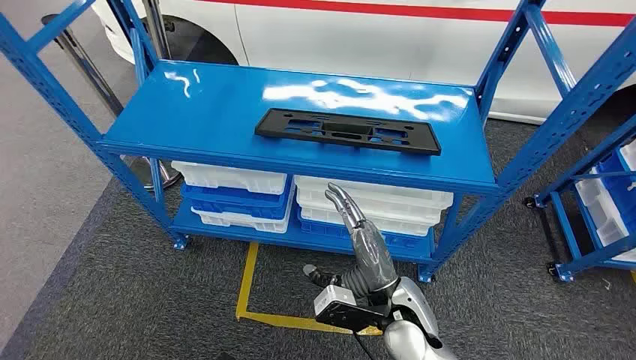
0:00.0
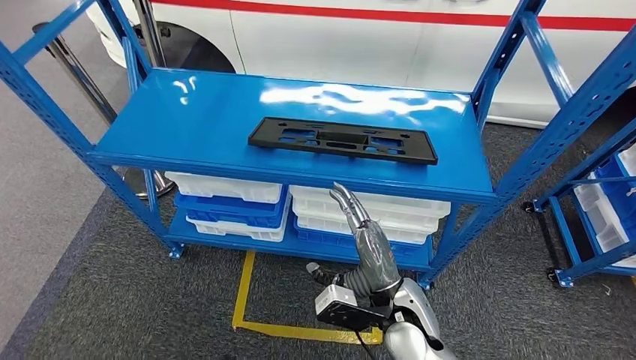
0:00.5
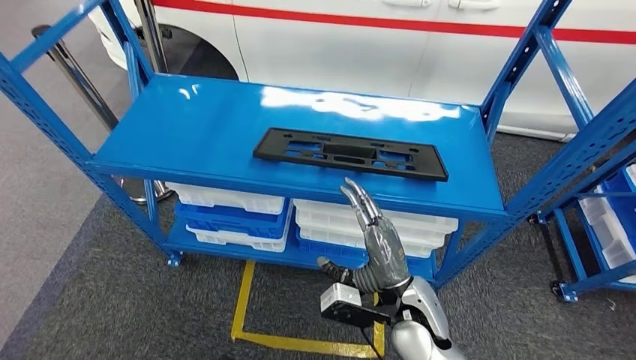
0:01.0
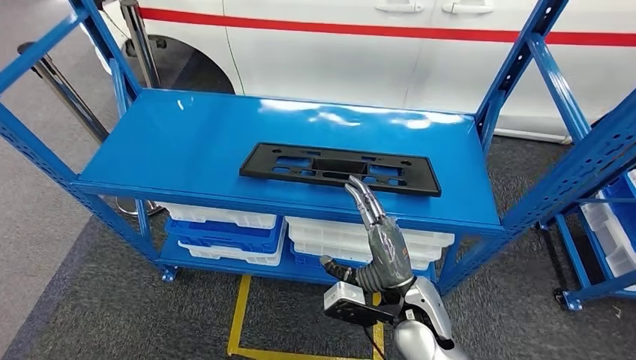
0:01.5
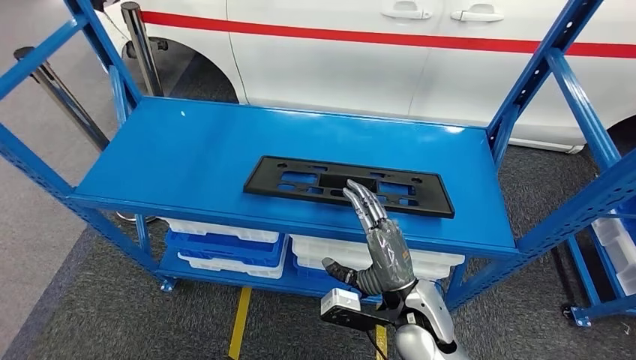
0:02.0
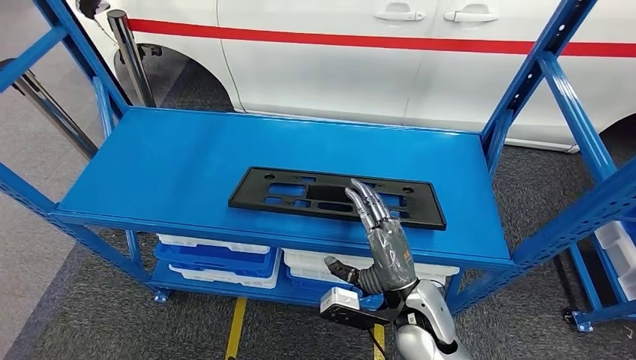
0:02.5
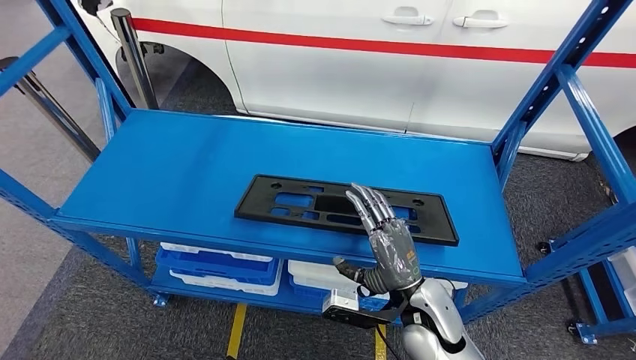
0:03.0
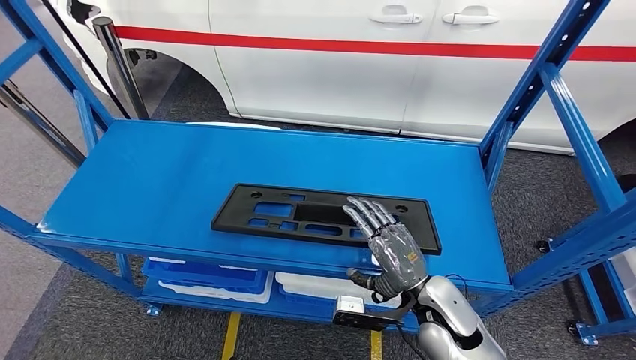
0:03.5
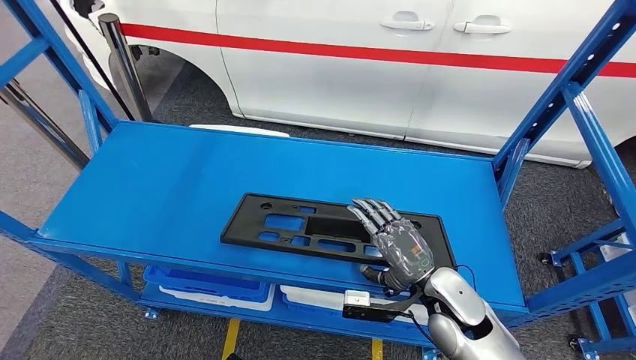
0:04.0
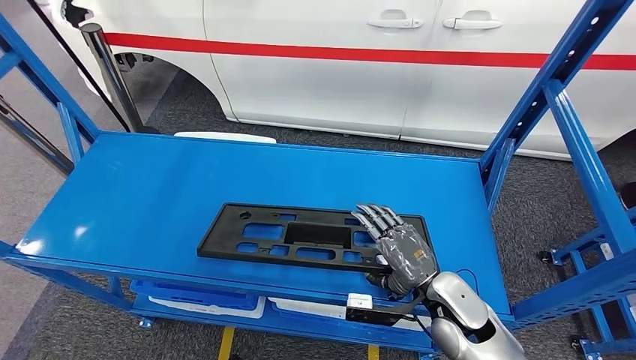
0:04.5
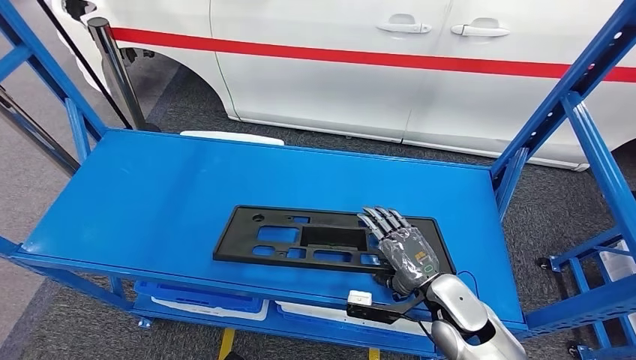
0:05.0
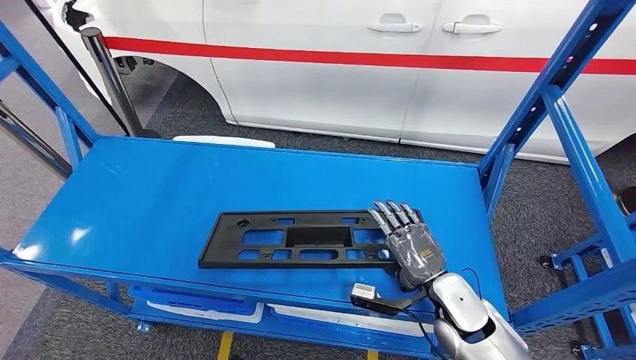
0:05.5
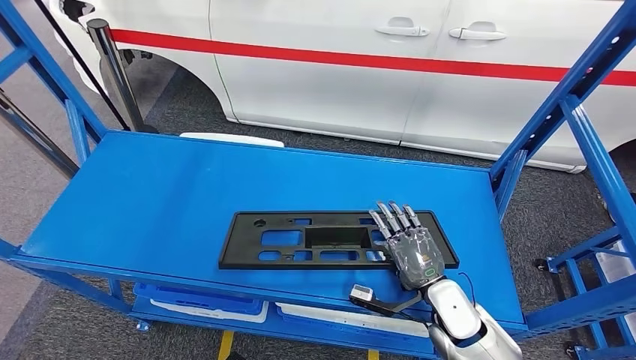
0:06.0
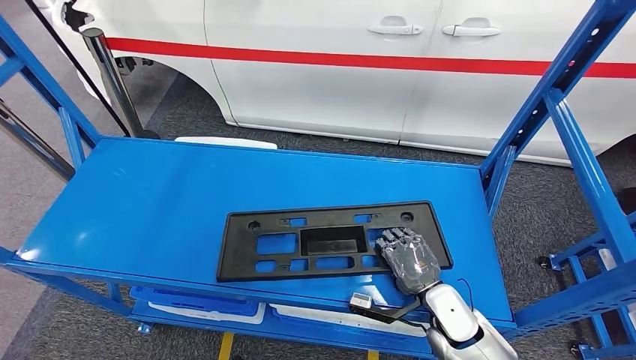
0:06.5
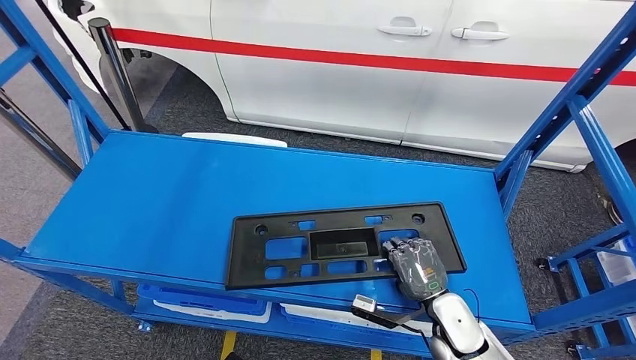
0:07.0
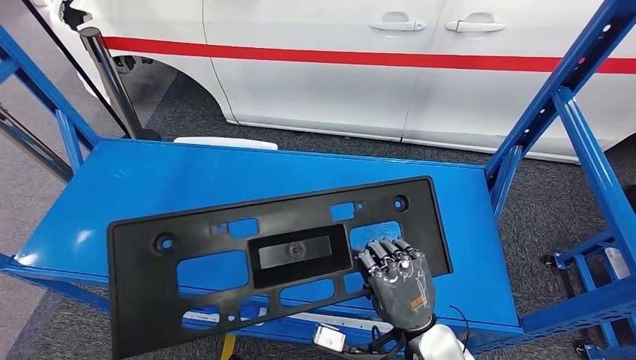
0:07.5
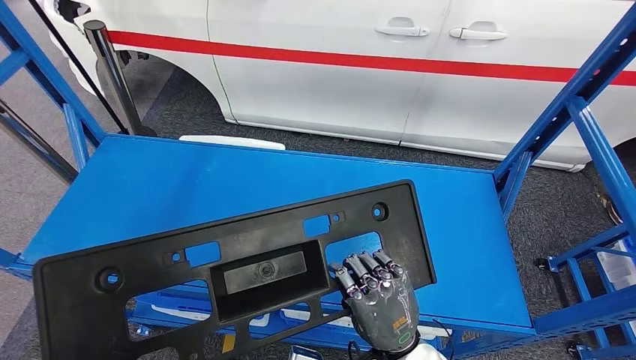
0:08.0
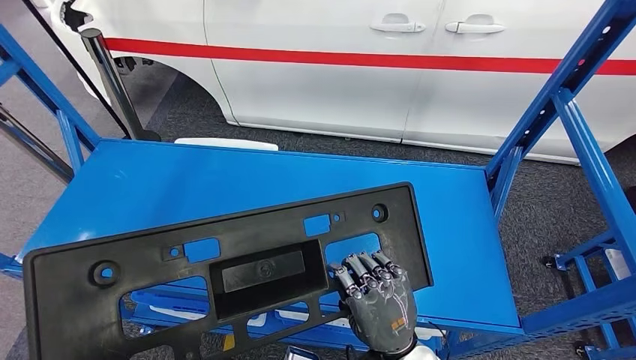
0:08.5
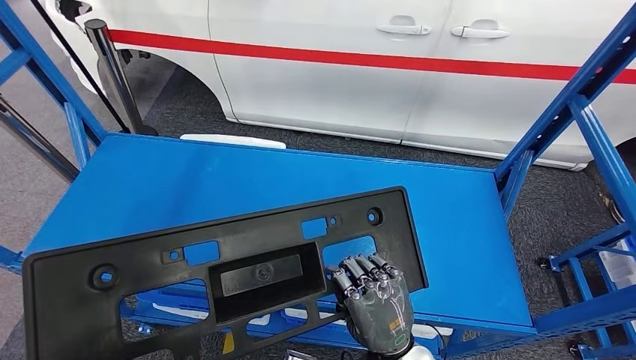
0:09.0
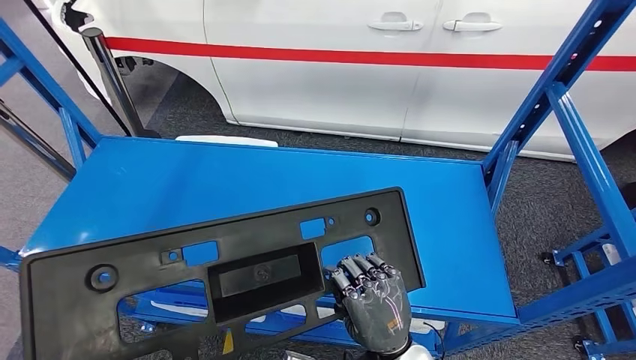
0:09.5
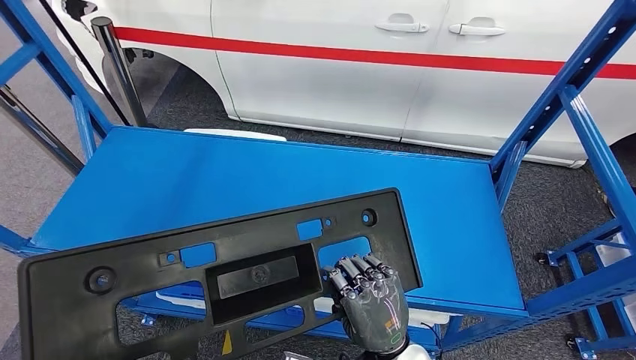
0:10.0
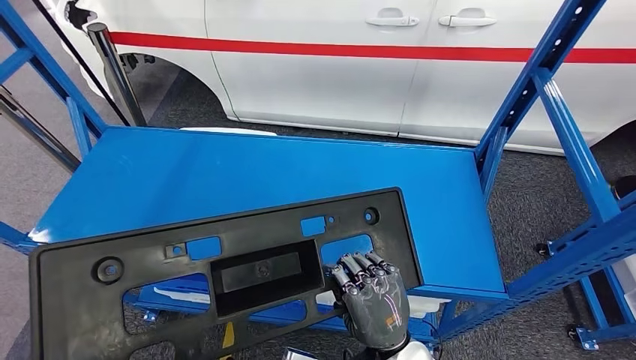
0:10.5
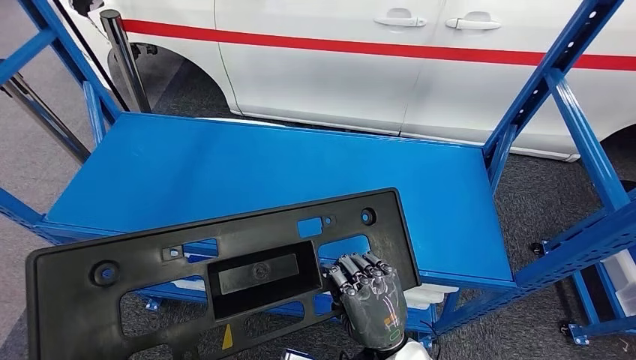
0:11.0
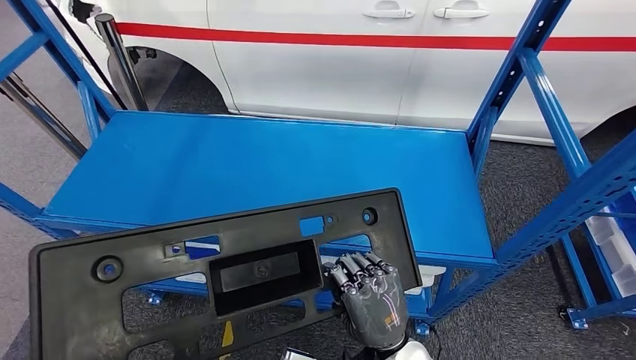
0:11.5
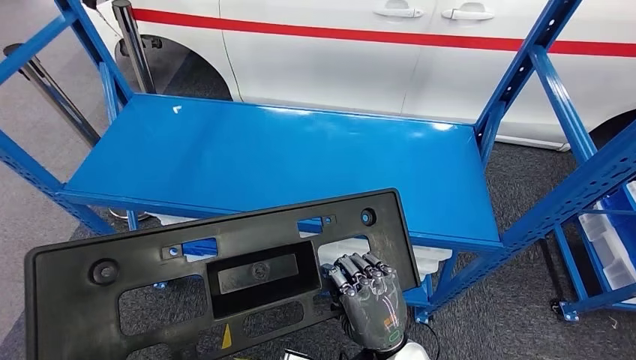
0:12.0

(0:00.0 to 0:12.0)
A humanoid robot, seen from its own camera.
Step, 0:00.0 - 0:09.5: Pick up the large material from the shelf.

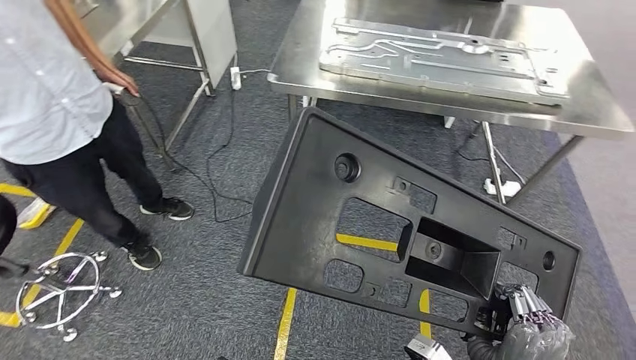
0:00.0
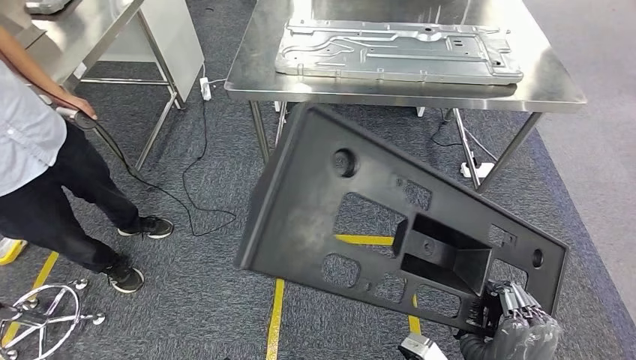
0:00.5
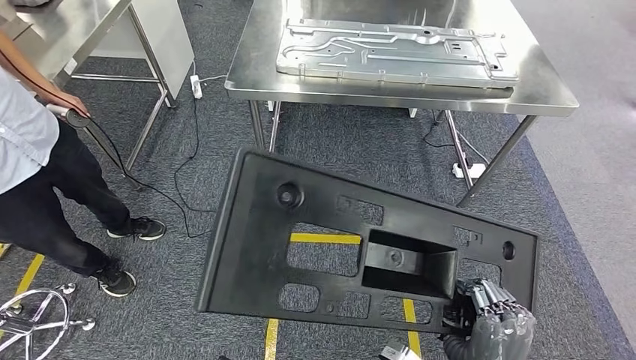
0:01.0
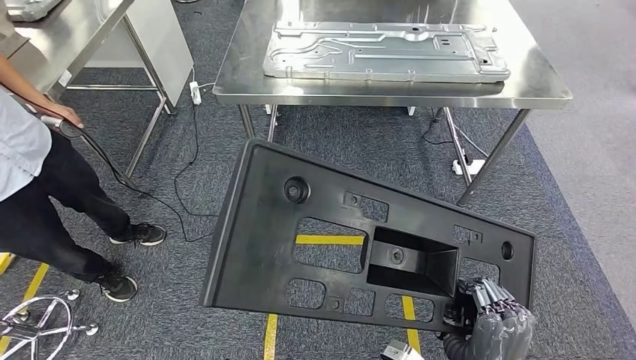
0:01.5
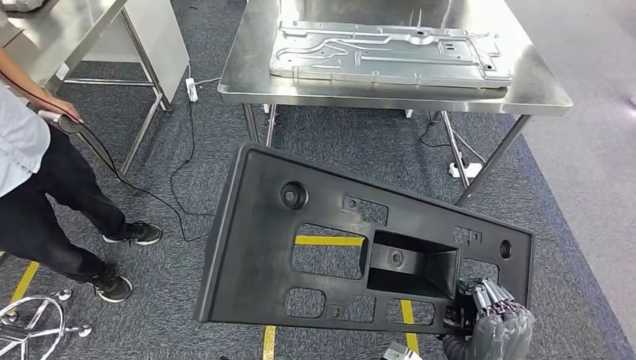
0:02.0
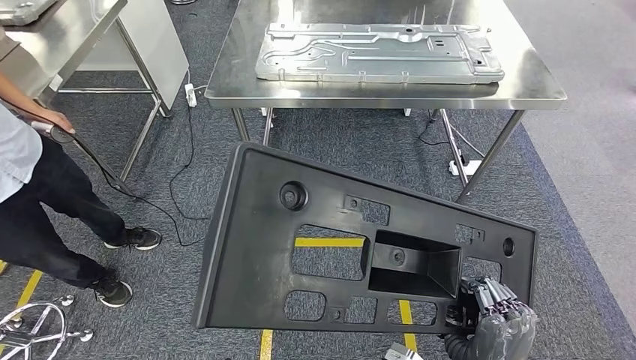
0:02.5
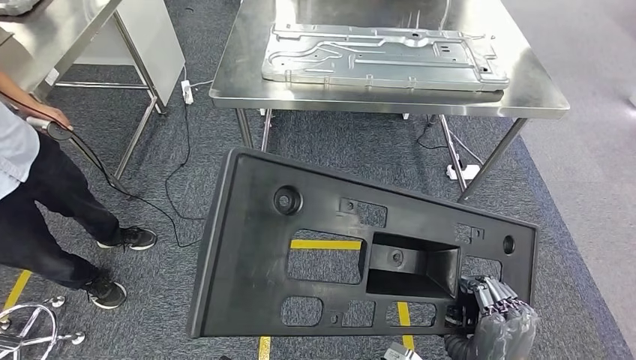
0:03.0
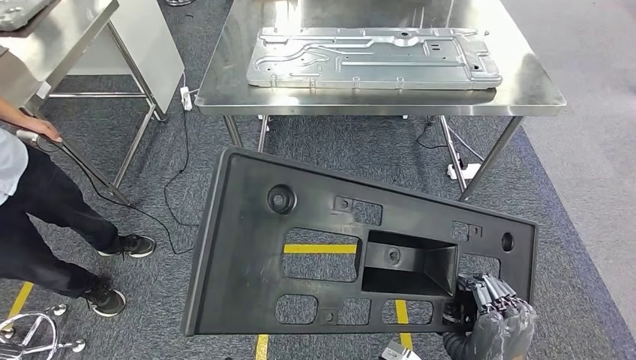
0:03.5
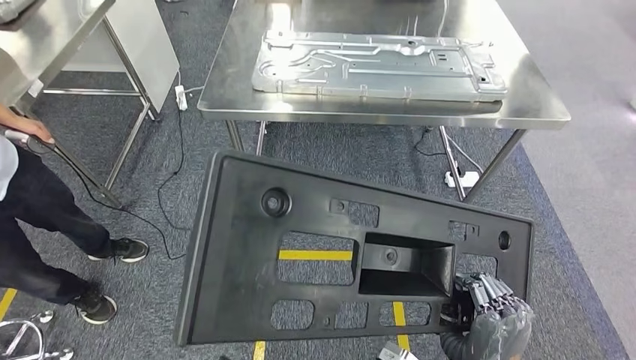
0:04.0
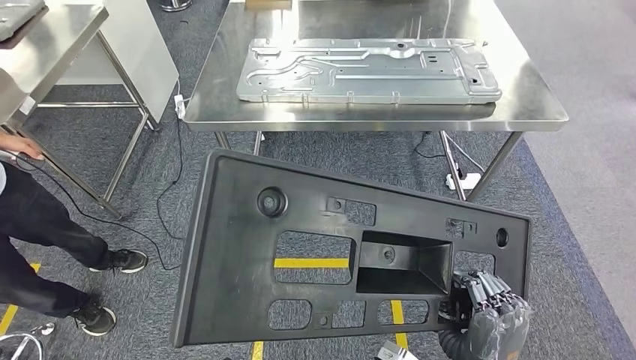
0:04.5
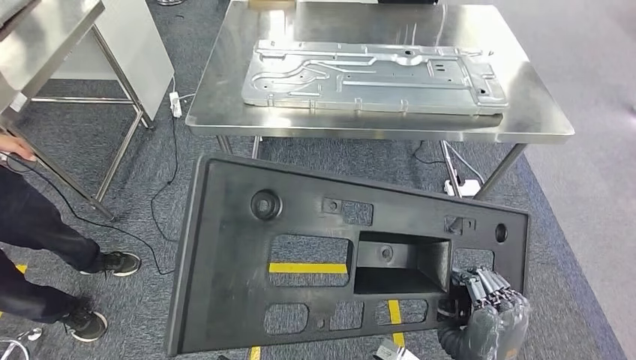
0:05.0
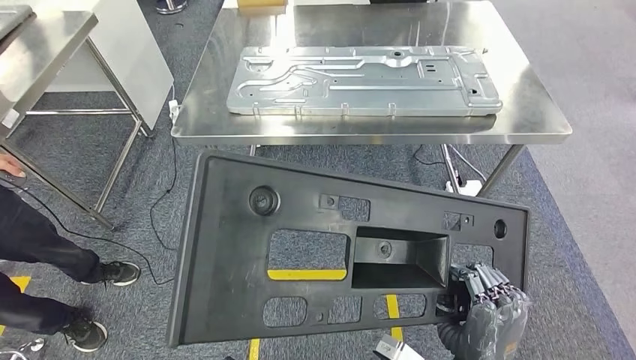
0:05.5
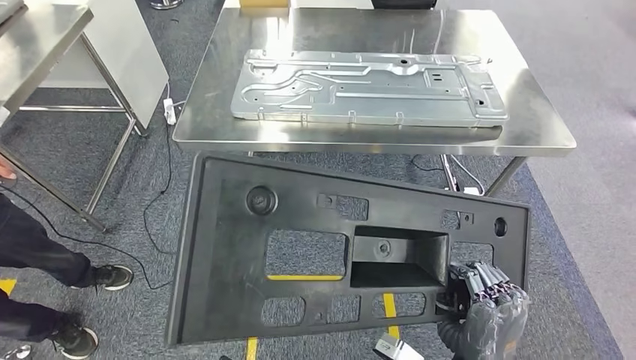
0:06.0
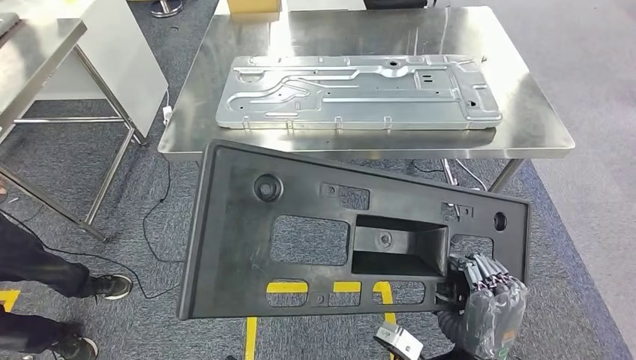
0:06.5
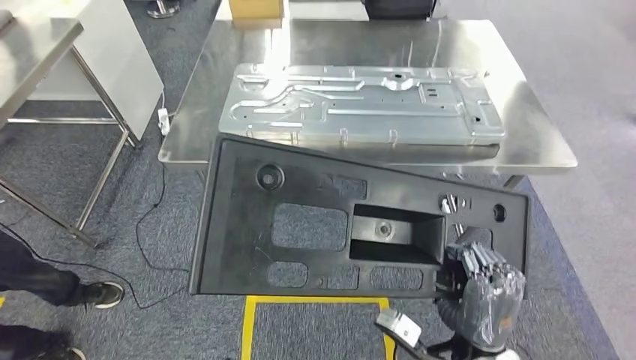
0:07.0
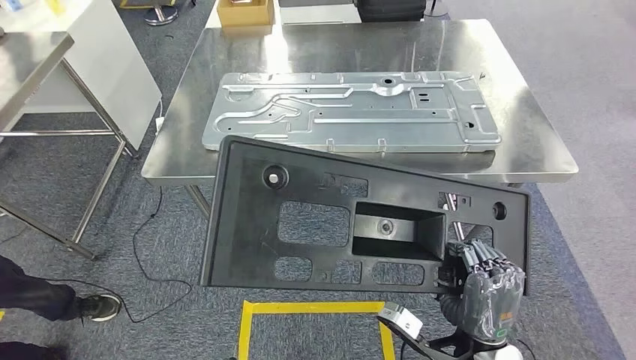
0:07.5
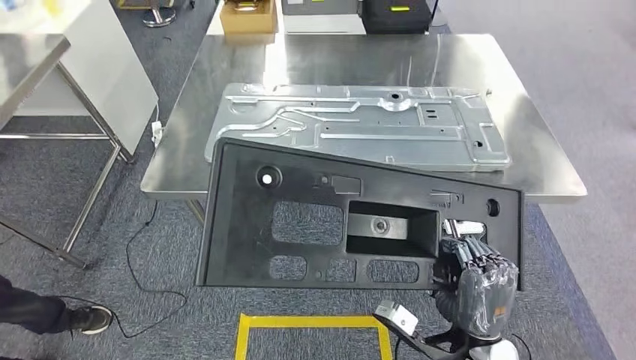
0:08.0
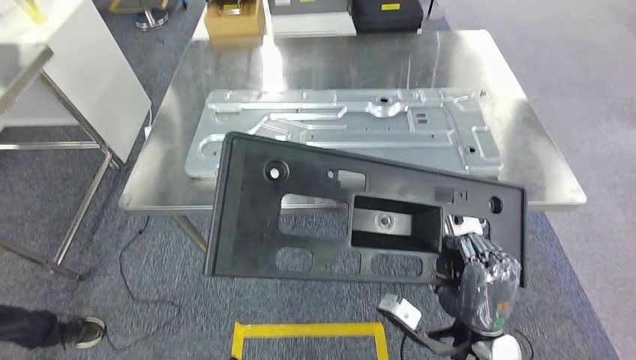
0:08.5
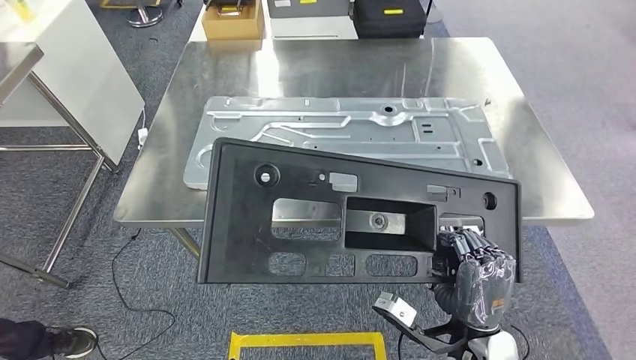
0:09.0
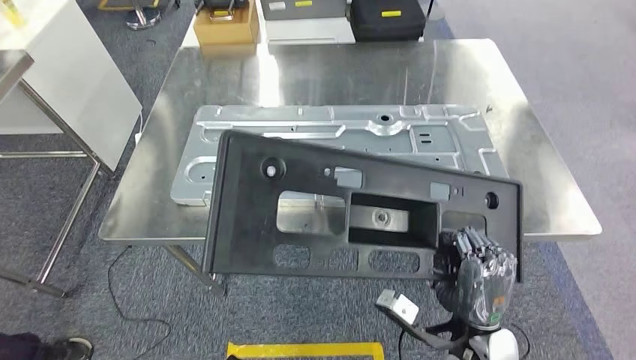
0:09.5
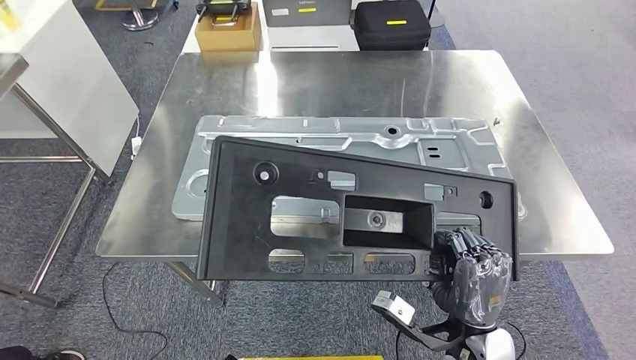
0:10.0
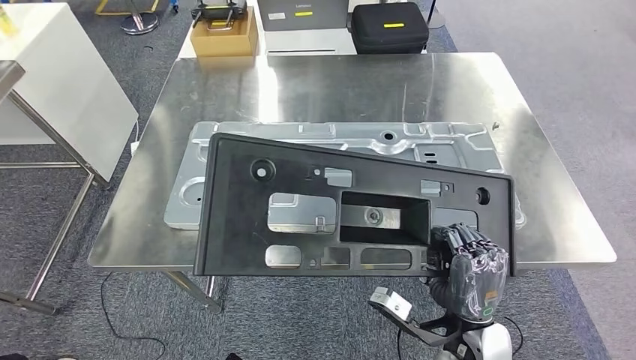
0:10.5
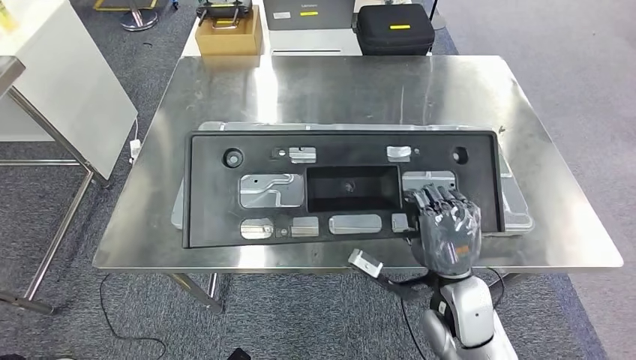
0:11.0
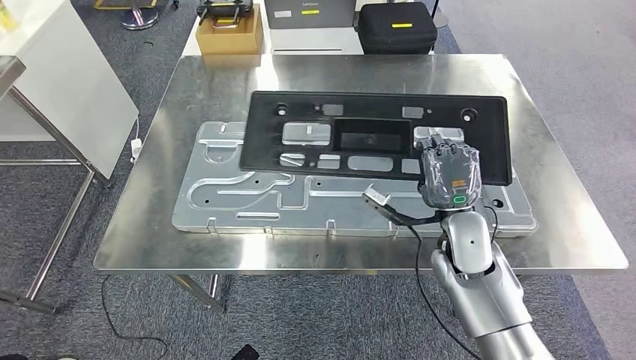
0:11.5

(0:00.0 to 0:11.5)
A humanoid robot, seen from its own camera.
Step, 0:00.0 - 0:08.0: Move the large material to the workbench.
